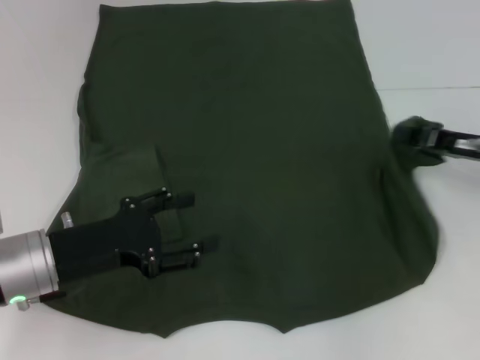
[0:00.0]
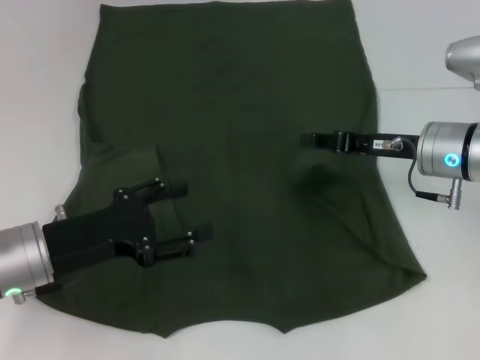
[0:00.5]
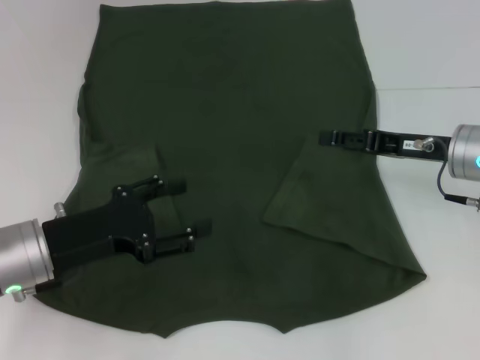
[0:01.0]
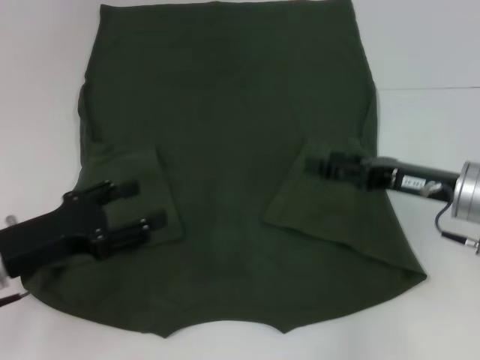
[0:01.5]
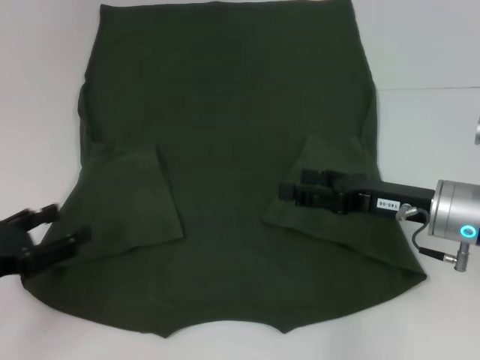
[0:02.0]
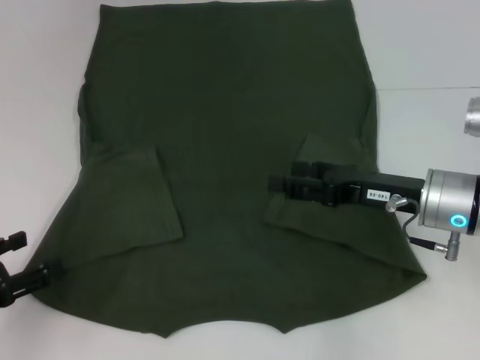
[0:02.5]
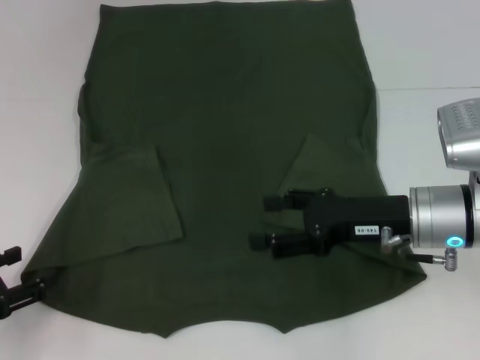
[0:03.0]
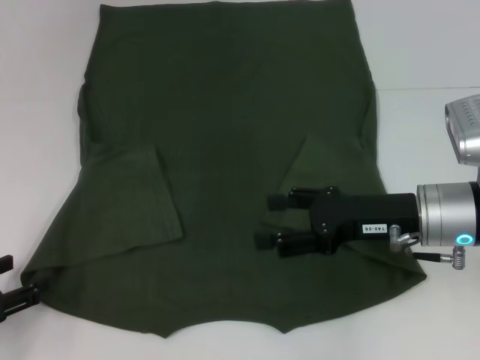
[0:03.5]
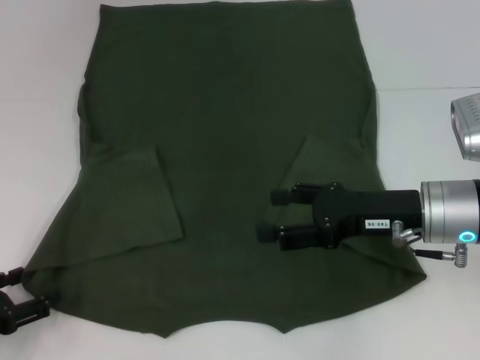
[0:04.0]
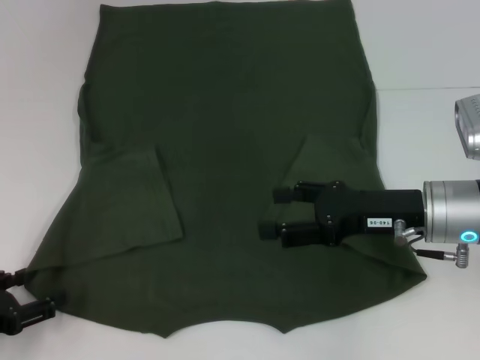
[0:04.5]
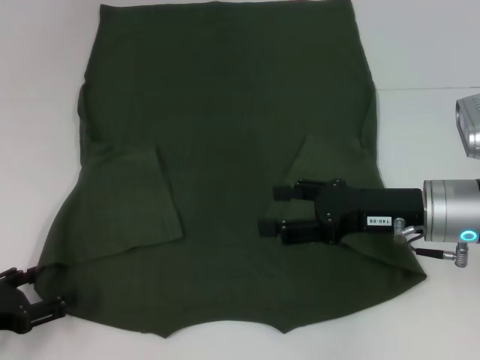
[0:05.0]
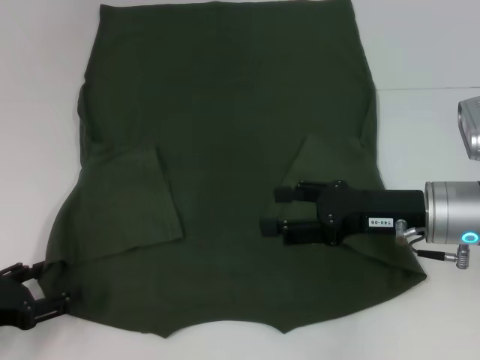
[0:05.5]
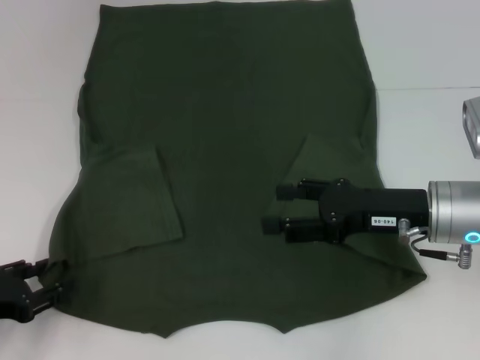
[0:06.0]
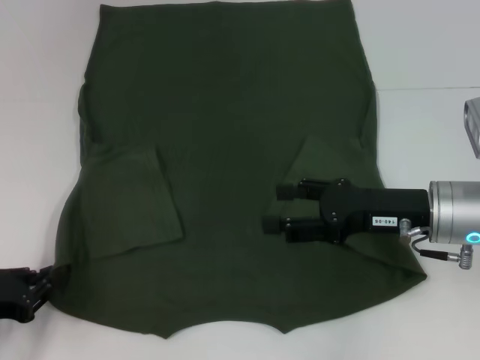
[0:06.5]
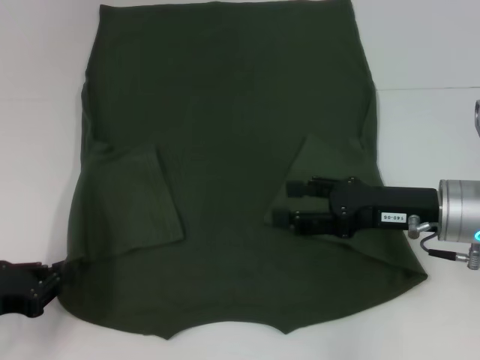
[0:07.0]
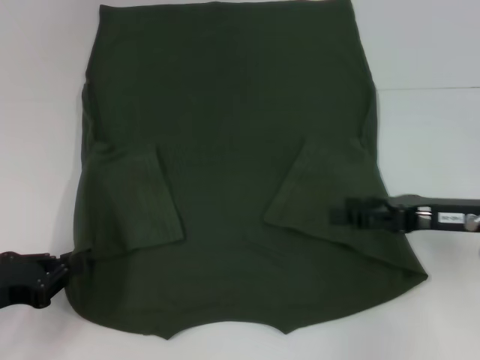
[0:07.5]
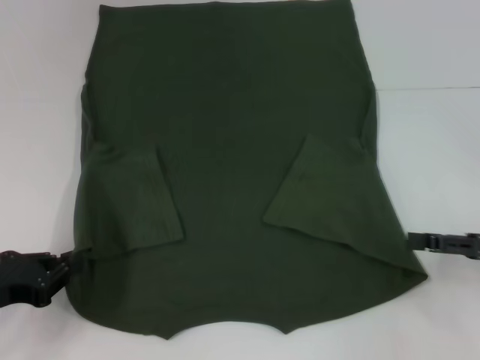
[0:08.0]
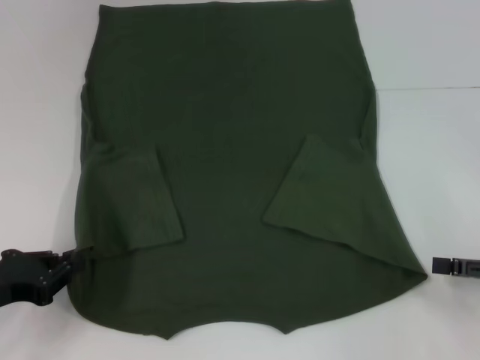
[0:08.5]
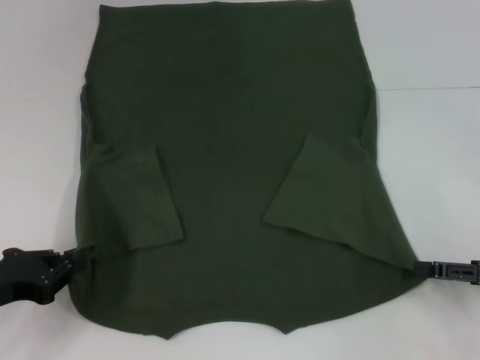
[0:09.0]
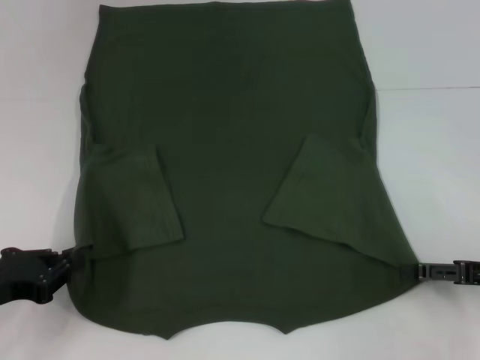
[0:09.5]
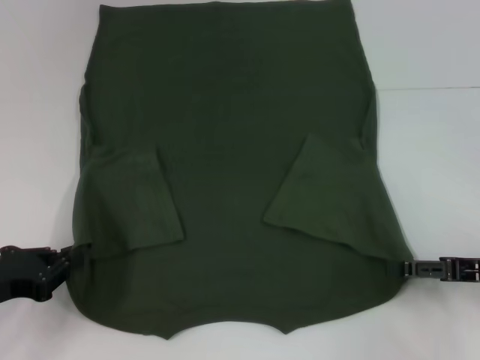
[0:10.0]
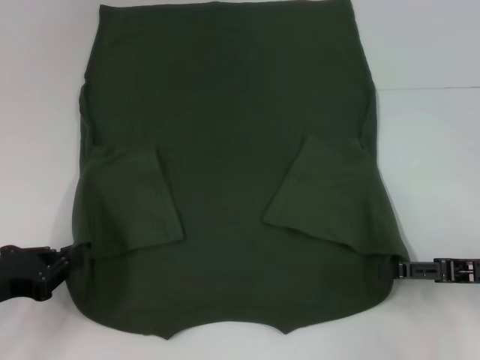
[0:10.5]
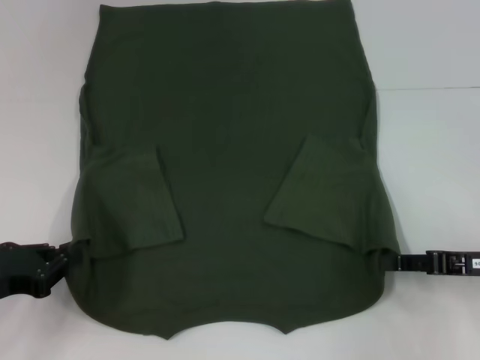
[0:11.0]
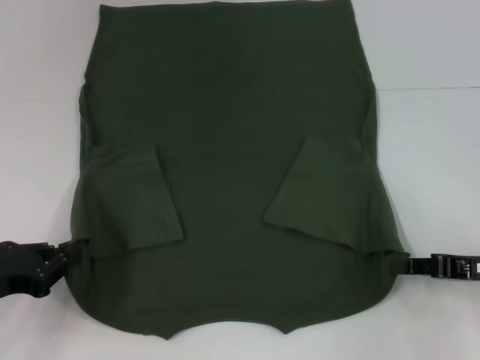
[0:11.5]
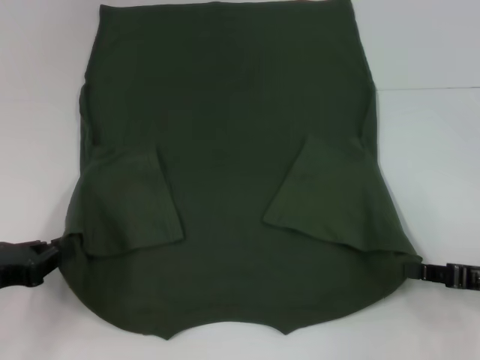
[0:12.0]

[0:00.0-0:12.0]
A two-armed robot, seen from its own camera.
Step, 0:01.5 to 0:06.5: Grab the bottom left corner with your left hand.
Step, 0:07.0 to 0:11.5: Grab the bottom right corner with your right hand.
0:00.0 to 0:02.0: The grippers both shift to the left by roughly 10 cm. The right gripper opens.
0:02.0 to 0:04.0: The left gripper moves about 5 cm.
0:04.0 to 0:06.0: The grippers move only a little.
0:06.0 to 0:08.0: The left gripper closes; the right gripper moves to the right, approximately 15 cm.
0:08.0 to 0:10.0: The grippers make only small movements.
0:10.0 to 0:12.0: The right gripper closes.

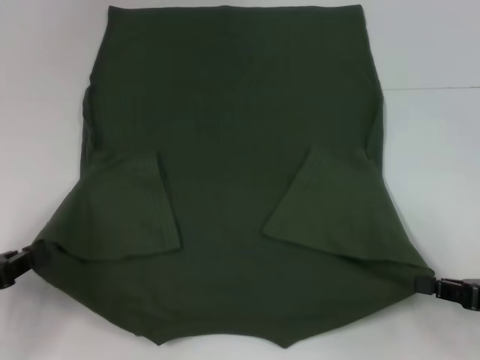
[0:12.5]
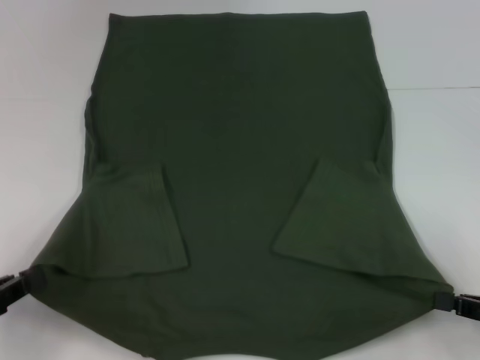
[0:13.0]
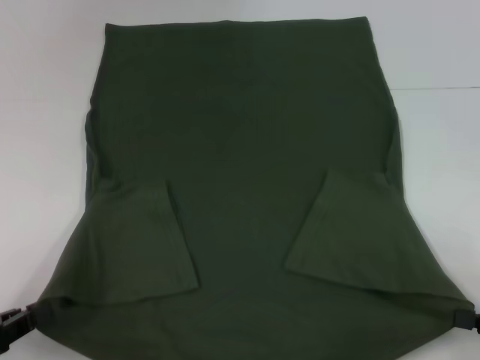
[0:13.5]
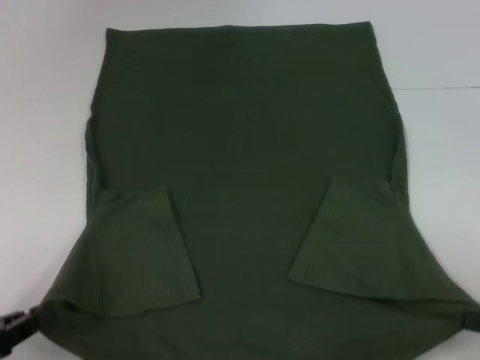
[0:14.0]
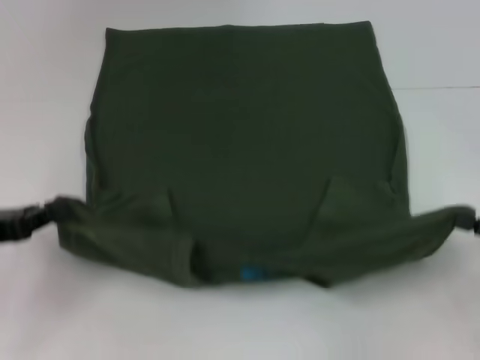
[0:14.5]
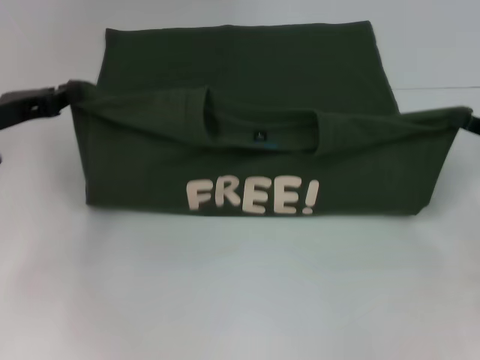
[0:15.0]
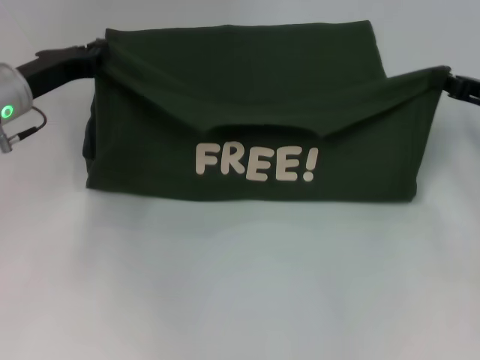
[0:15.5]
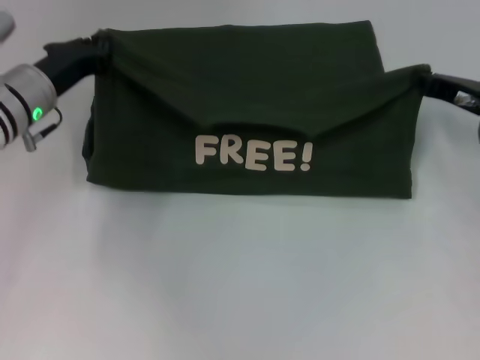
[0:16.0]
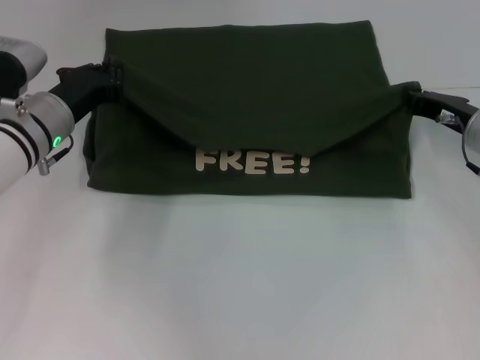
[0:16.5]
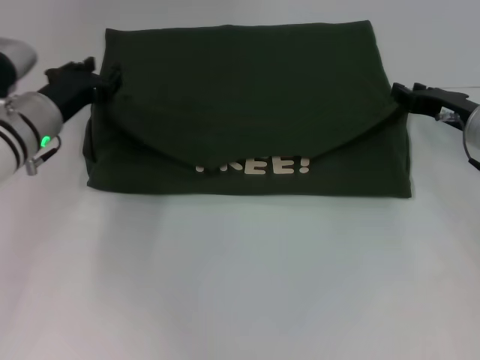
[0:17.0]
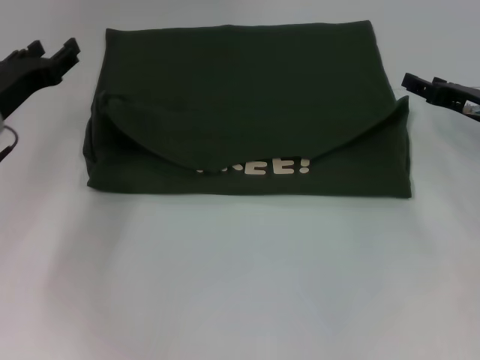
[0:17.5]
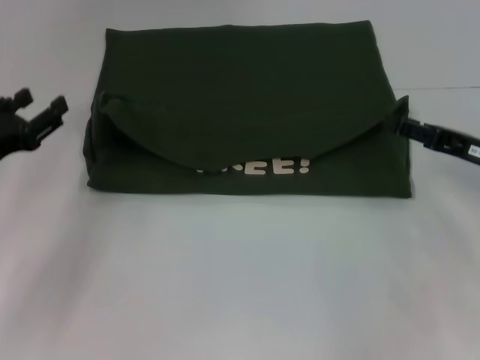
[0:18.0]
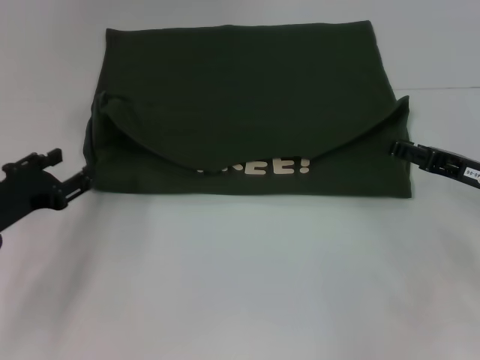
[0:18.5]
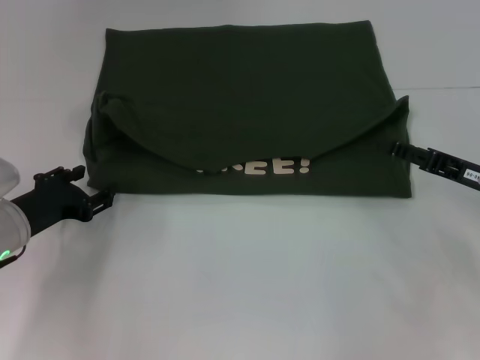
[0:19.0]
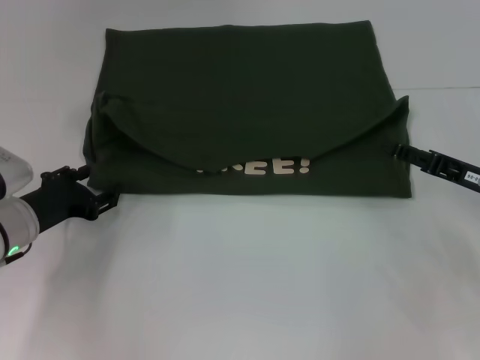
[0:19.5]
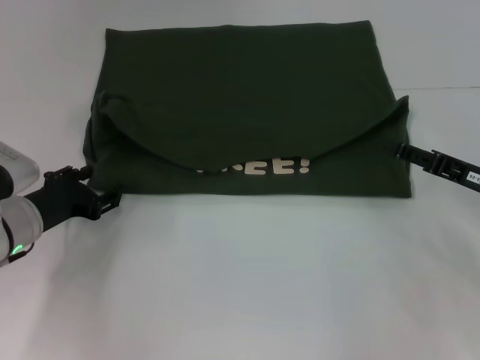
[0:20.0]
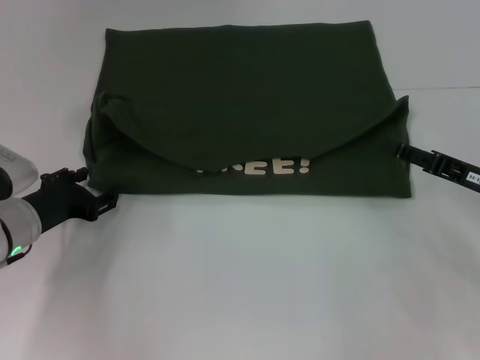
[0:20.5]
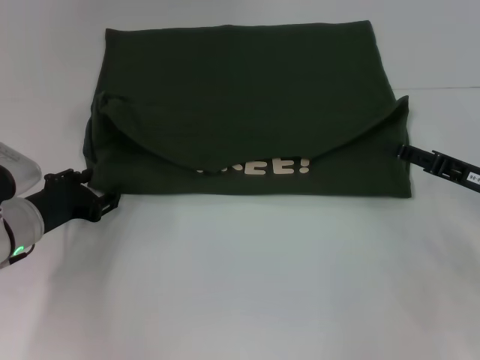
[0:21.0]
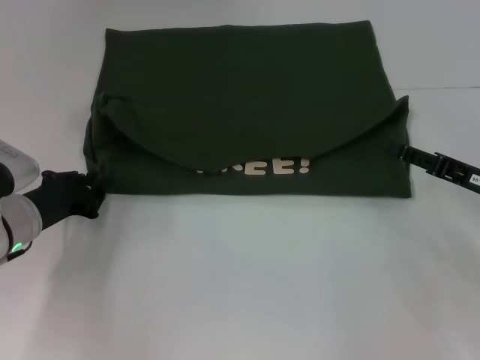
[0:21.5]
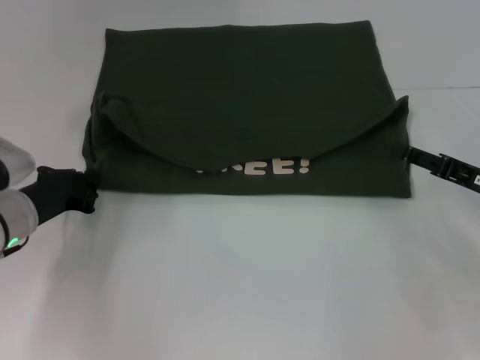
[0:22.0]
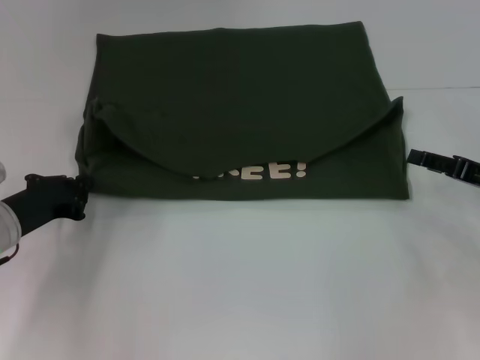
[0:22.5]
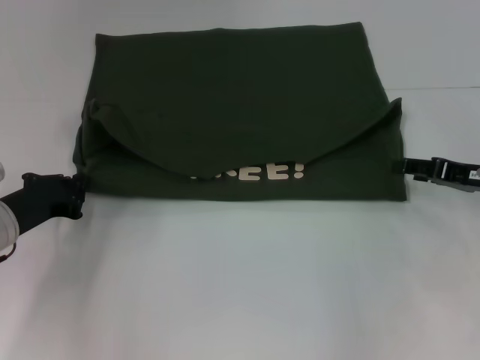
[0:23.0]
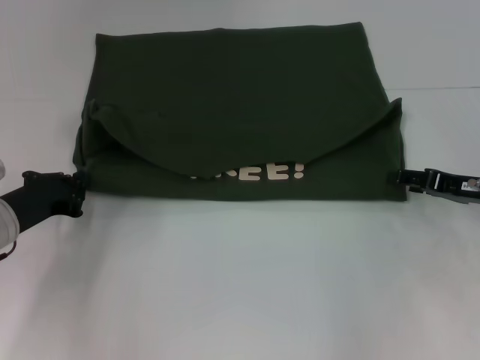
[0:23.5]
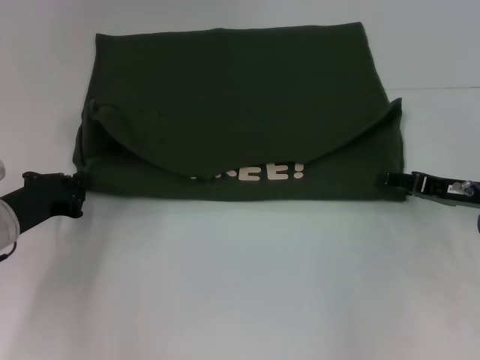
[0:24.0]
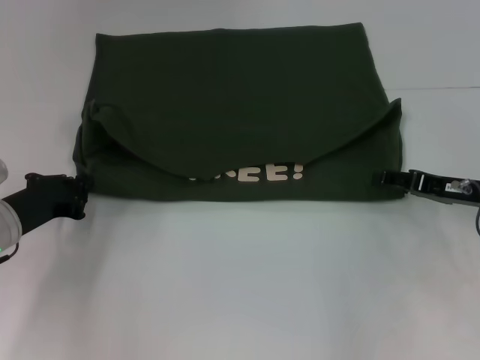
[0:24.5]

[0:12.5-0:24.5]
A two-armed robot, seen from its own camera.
Step, 0:12.5 to 0:17.0: Fold the clothes with your left hand.
Step, 0:12.5 to 0:17.0: Fold the clothes with your right hand.
0:12.5 to 0:14.5: The left gripper changes place by about 5 cm.
0:14.5 to 0:16.5: The left gripper shifts approximately 20 cm forward and to the right; the right gripper goes roughly 20 cm forward and to the left.
0:16.5 to 0:18.5: The right gripper heads backward, covering some 10 cm, and opens. The left gripper heads backward and to the left, covering roughly 15 cm, and opens.
0:18.5 to 0:20.5: The left gripper shifts by about 5 cm.
0:20.5 to 0:22.5: The left gripper closes.
0:22.5 to 0:24.5: There are only small adjustments of the grippers.

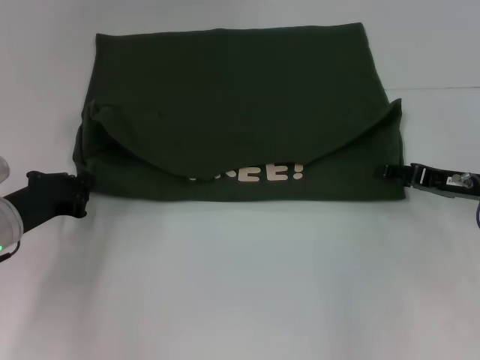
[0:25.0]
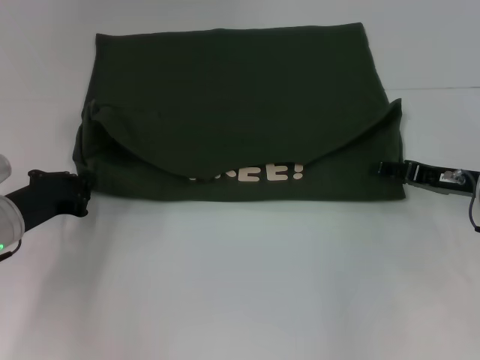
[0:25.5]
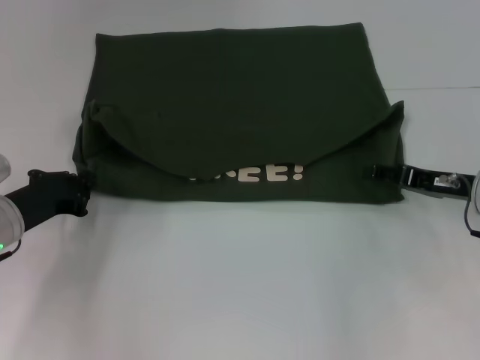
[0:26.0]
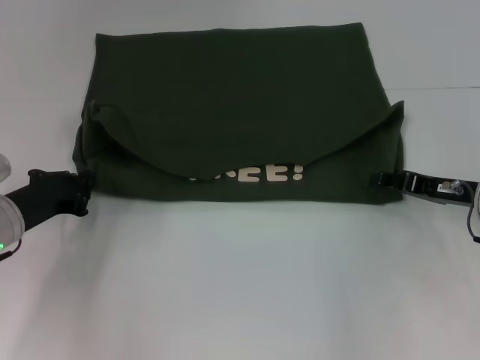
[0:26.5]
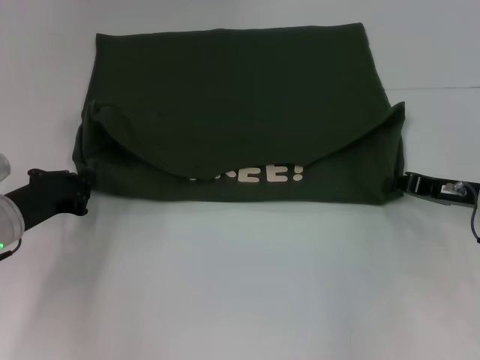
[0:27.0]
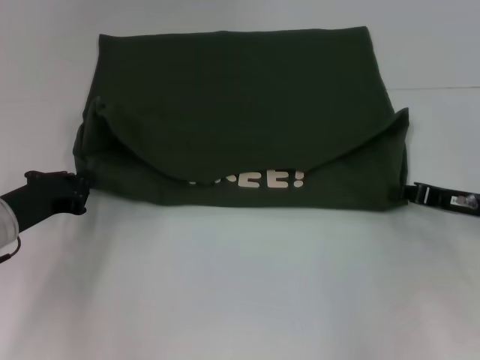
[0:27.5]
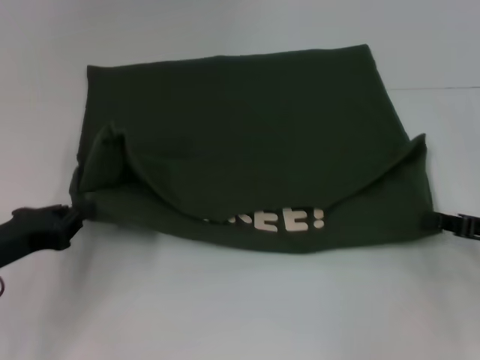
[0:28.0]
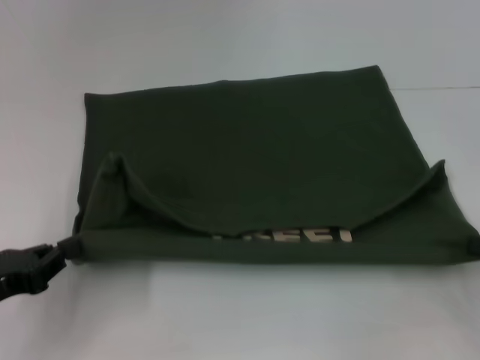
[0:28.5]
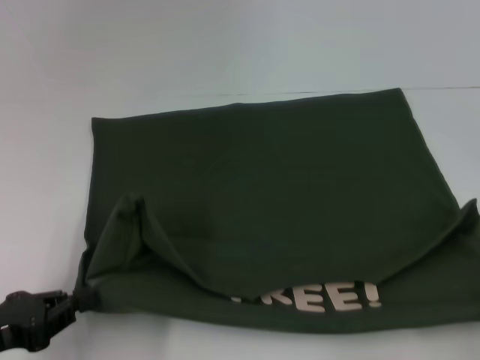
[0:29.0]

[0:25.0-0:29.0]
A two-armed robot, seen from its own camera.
0:25.0 to 0:27.0: The right gripper closes.
0:27.0 to 0:29.0: The left gripper moves backward, about 15 cm, while the right gripper heads backward and to the right, covering some 20 cm.
